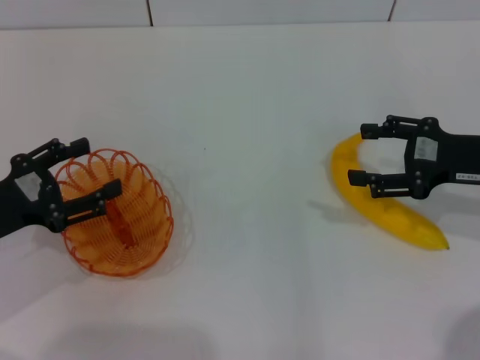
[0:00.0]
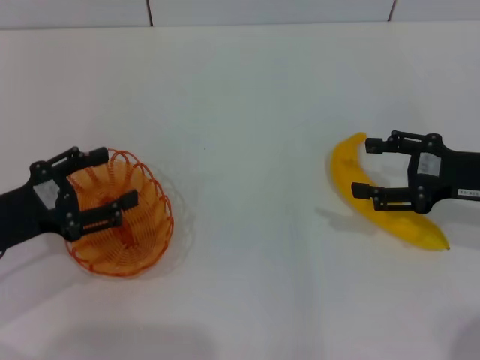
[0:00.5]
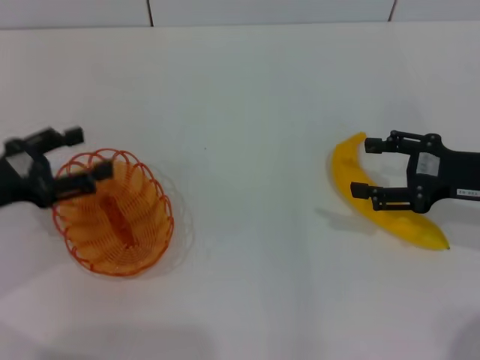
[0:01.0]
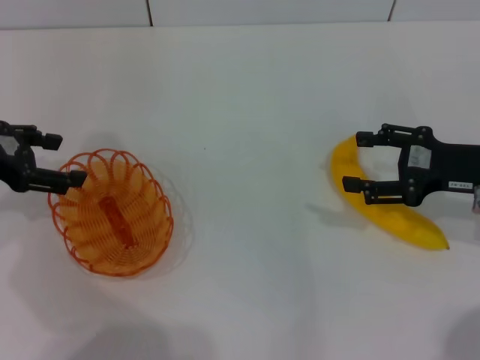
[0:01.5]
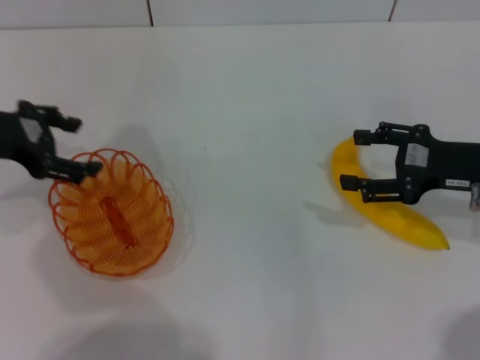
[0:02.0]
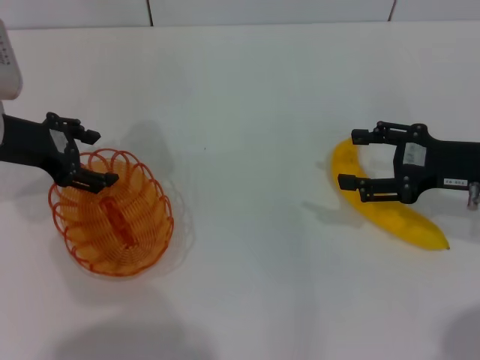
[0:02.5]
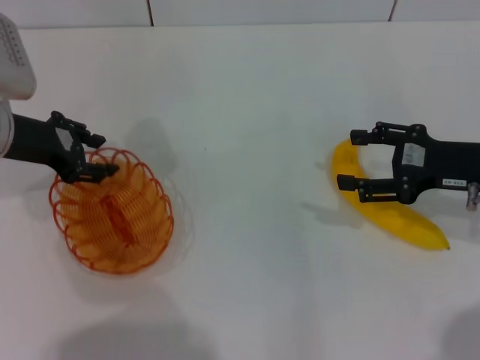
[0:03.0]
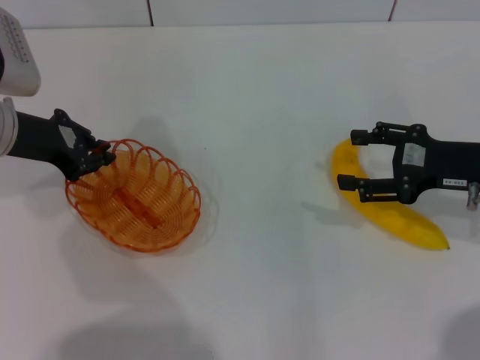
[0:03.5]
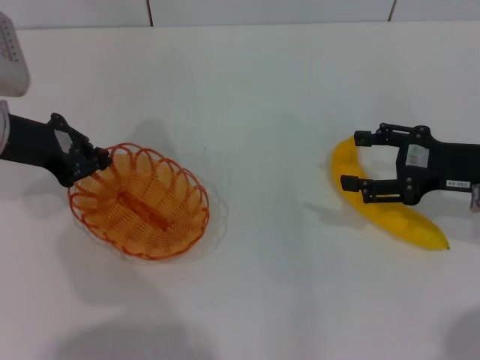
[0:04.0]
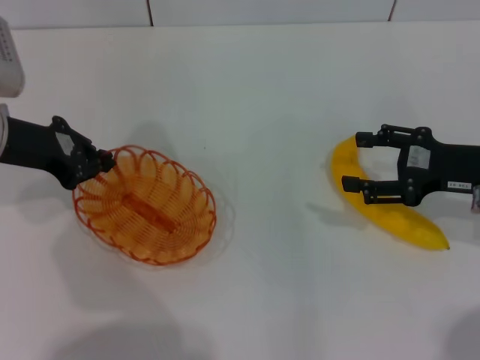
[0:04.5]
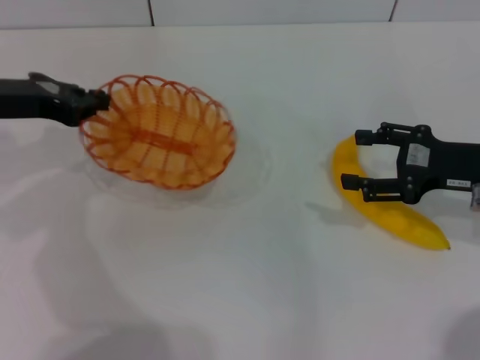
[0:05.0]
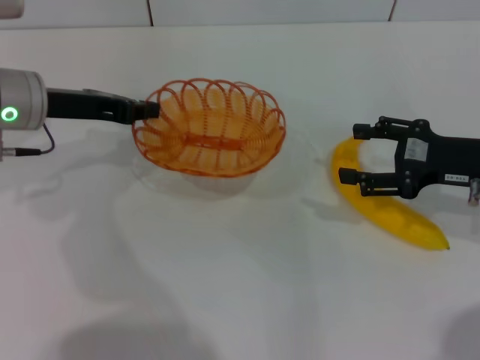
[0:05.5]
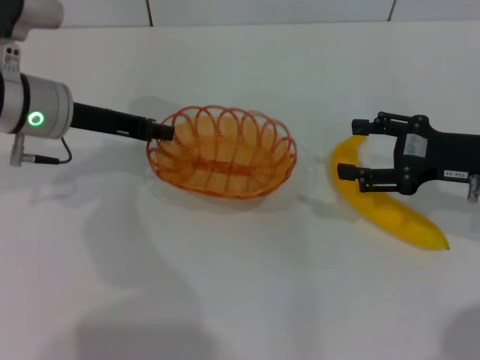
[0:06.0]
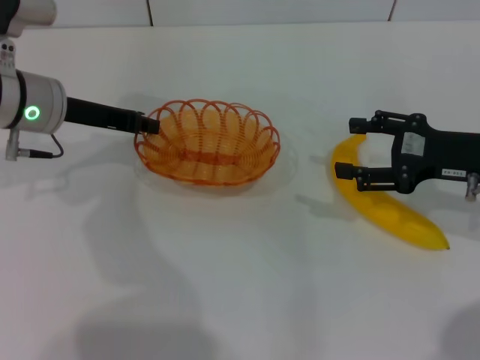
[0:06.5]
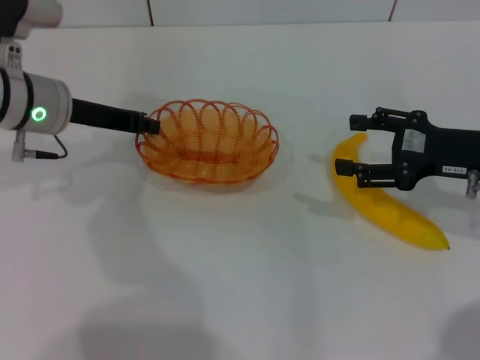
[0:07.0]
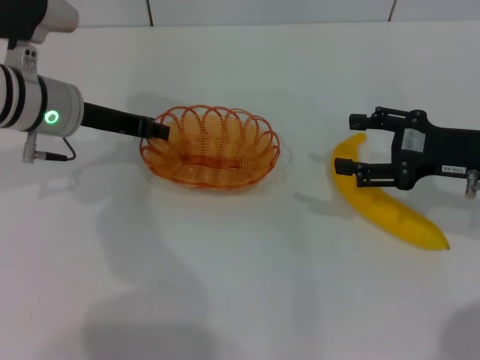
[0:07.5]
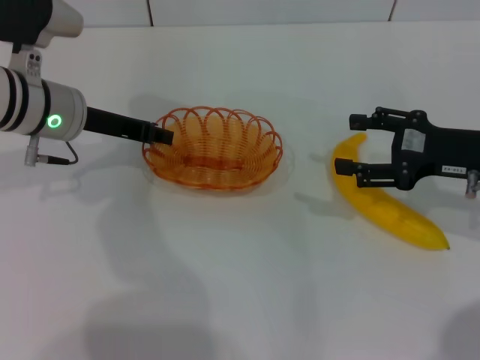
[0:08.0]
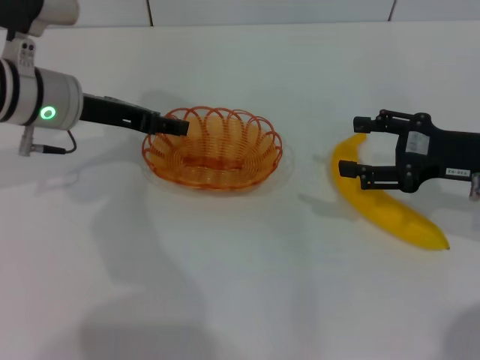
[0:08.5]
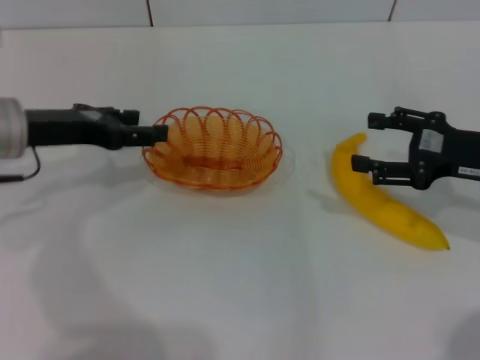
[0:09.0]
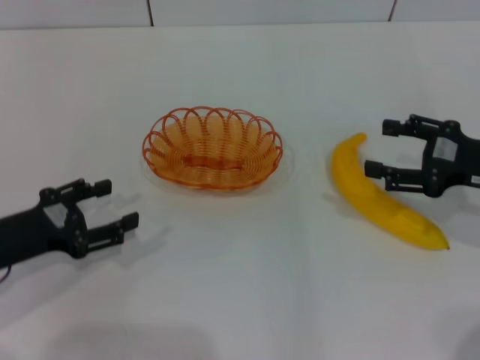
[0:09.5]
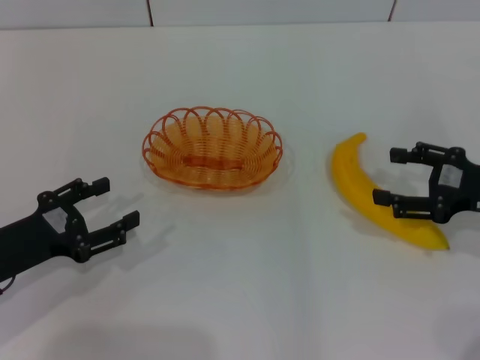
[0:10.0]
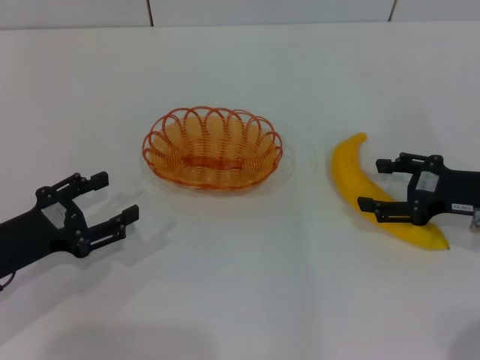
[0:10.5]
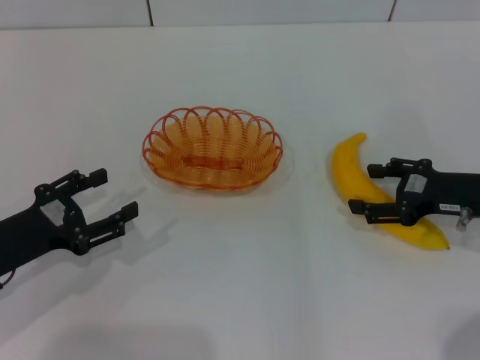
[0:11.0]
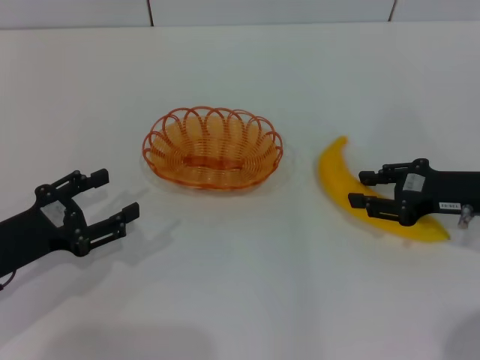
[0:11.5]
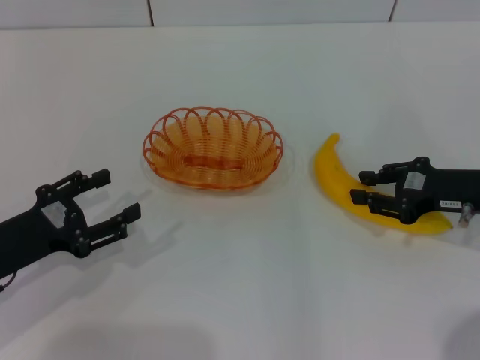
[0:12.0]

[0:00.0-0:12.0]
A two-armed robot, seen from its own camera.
Step, 0:00.0 to 0:04.5: Pick up the basket with the left gripper.
Step, 0:05.0 to 0:09.0: Place the basket in the center of view with the left gripper.
0:00.0 to 0:02.0: The left gripper shifts approximately 15 cm forward and upward.
0:02.0 to 0:04.0: The left gripper closes up.
0:04.0 to 0:06.0: The left gripper travels to the right by roughly 5 cm.
0:06.0 to 0:08.0: The grippers stay close to where they were, moving slightly.
0:08.0 to 0:10.0: The left gripper is displaced backward, to the left and downward by about 20 cm, and opens up. The right gripper changes place by roughly 5 cm.
0:10.0 to 0:12.0: The right gripper closes up.

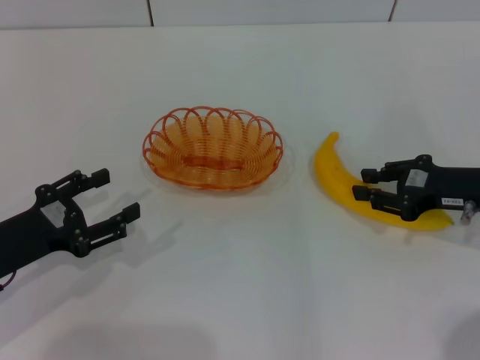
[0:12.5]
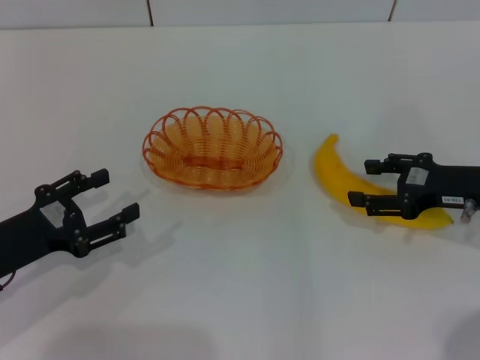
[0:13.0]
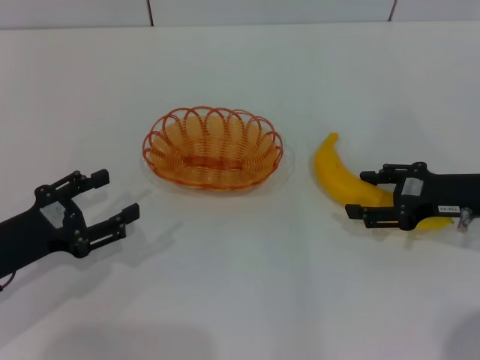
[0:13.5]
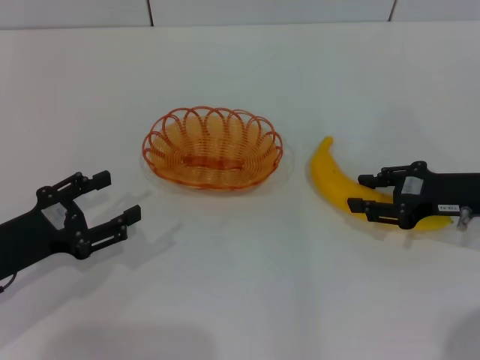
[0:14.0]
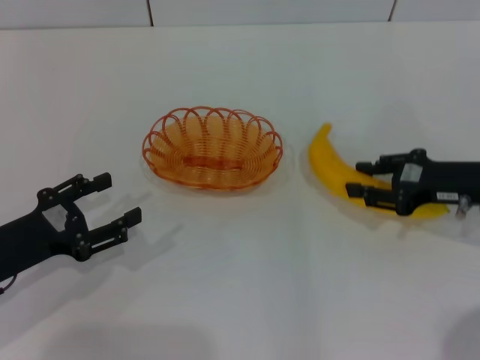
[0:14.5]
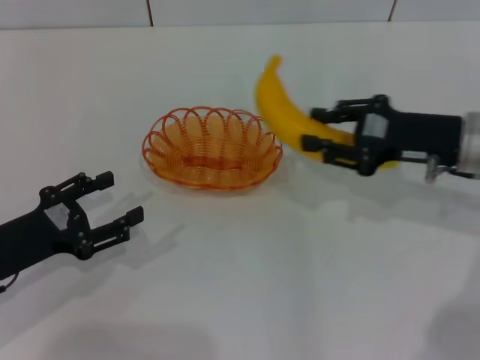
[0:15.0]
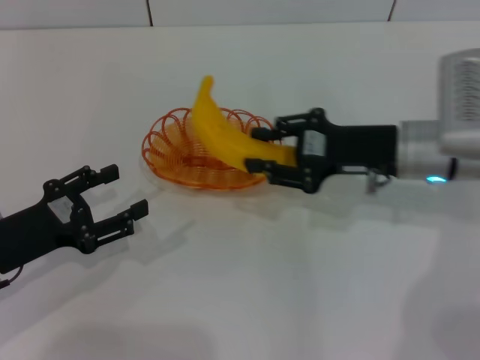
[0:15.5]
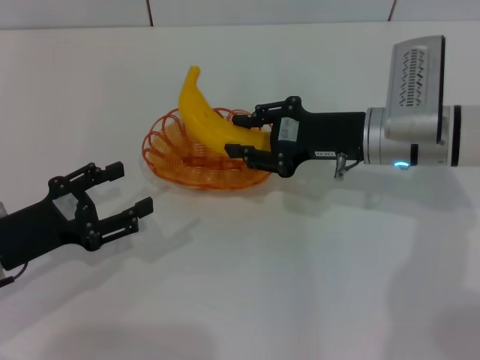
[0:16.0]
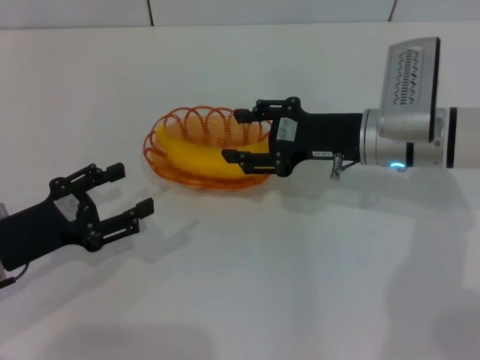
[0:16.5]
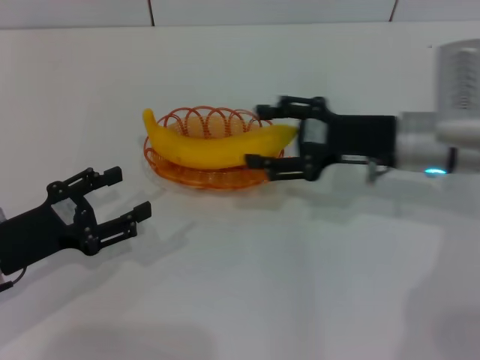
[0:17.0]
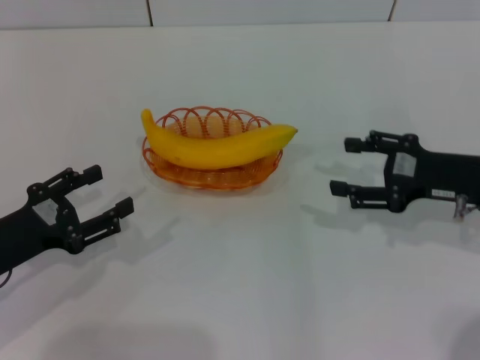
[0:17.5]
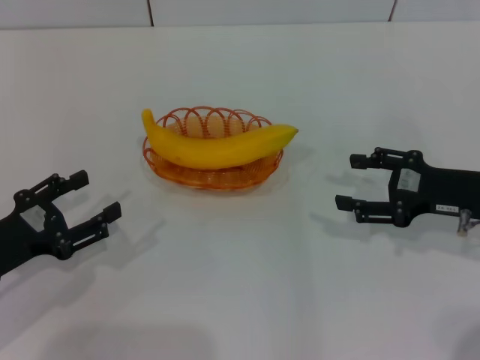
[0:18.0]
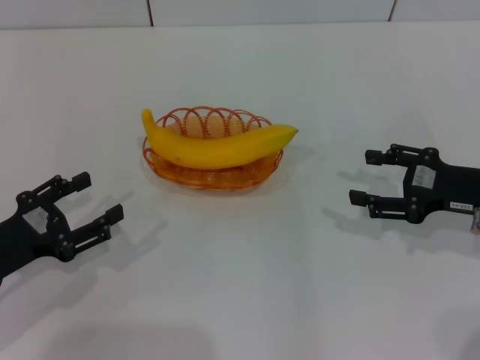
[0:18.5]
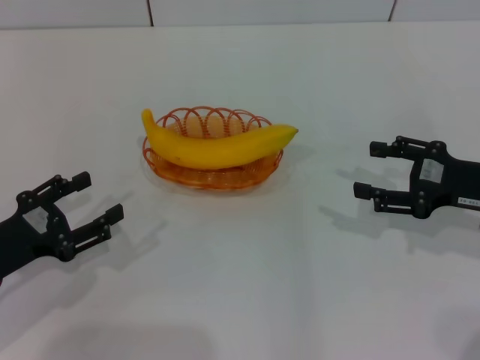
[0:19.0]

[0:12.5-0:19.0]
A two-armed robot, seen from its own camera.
Step, 0:12.5 to 0:14.5: Pick up the banana with the right gripper.
Step, 0:15.0 to 0:17.0: Place the banana into the basket with the right gripper.
0:12.5 to 0:14.5: The right gripper opens, then closes once more.
0:14.5 to 0:17.0: The right gripper is displaced to the left by about 10 cm, and opens up.
0:17.0 to 0:19.0: The right gripper heads to the right and backward, covering roughly 10 cm.

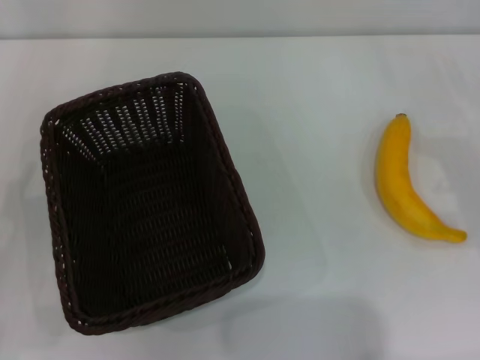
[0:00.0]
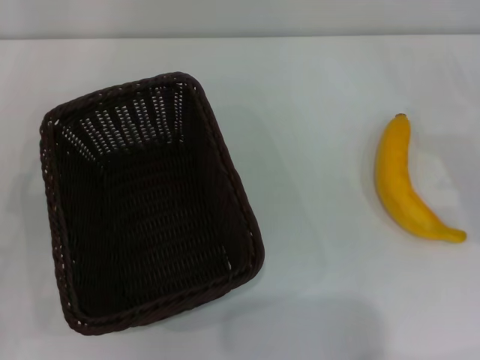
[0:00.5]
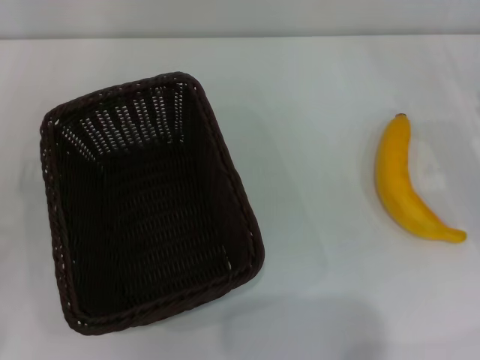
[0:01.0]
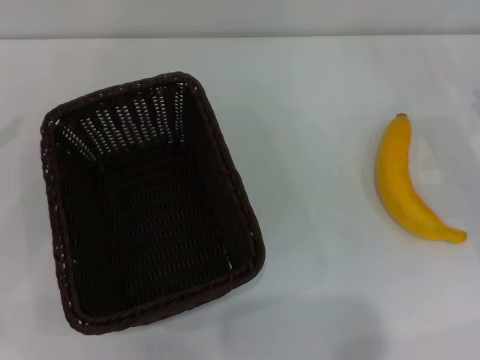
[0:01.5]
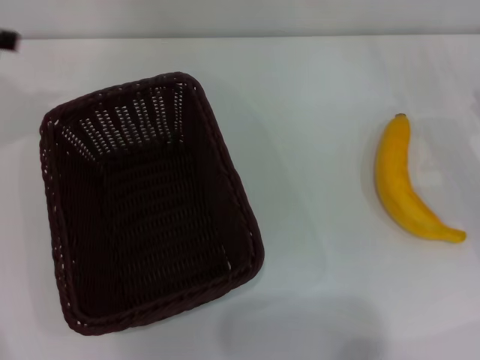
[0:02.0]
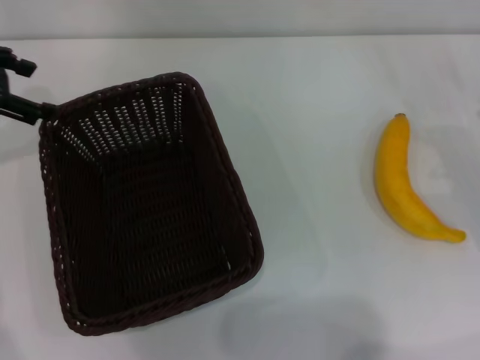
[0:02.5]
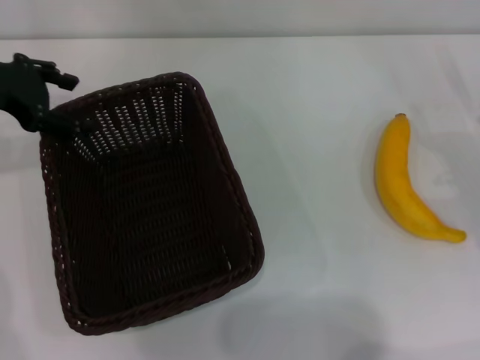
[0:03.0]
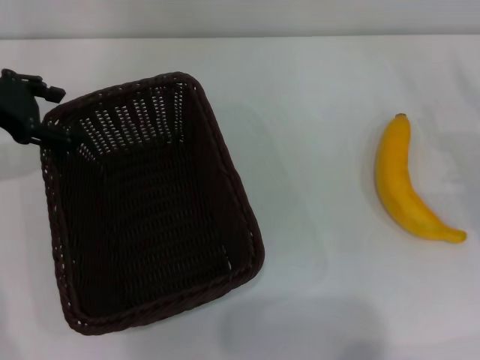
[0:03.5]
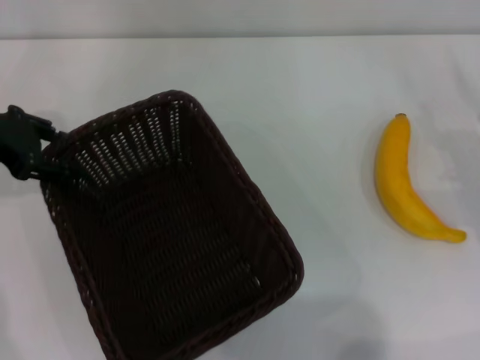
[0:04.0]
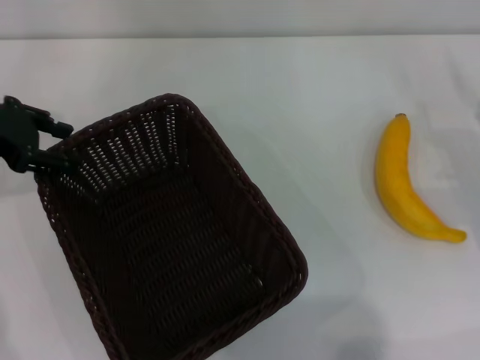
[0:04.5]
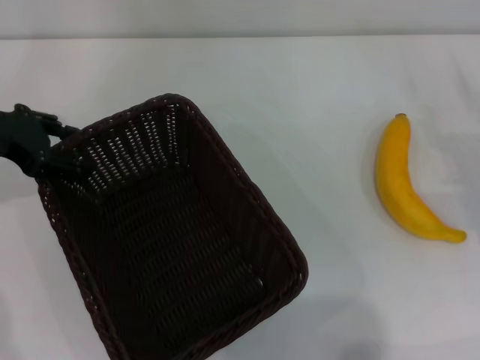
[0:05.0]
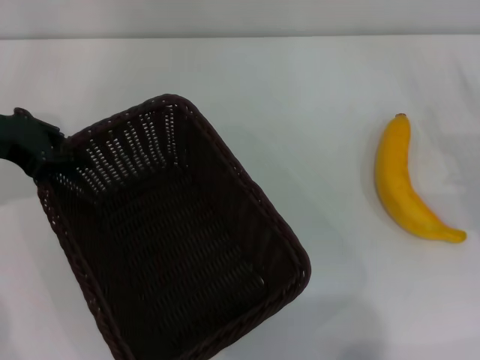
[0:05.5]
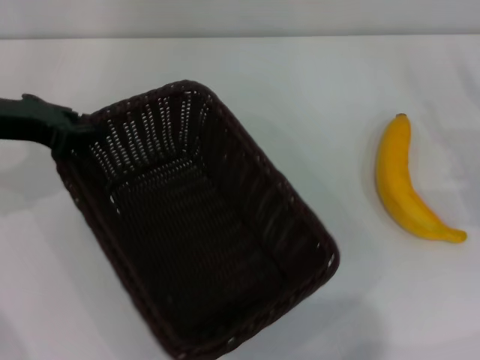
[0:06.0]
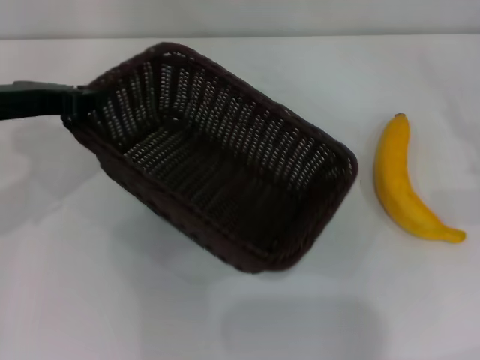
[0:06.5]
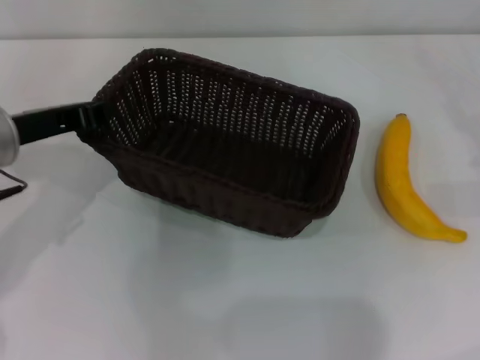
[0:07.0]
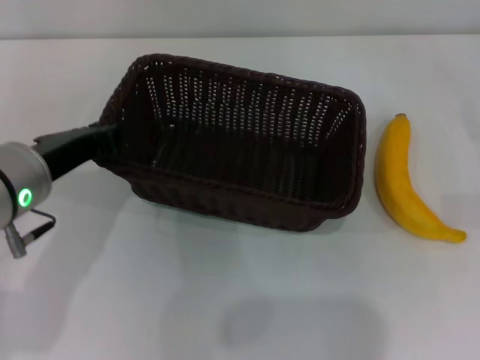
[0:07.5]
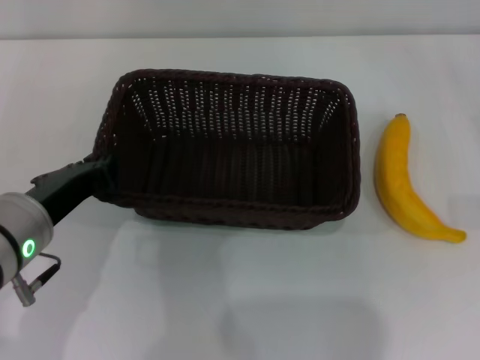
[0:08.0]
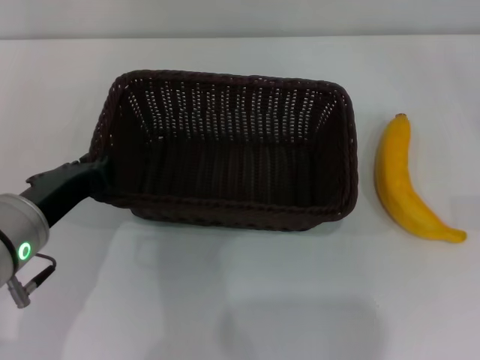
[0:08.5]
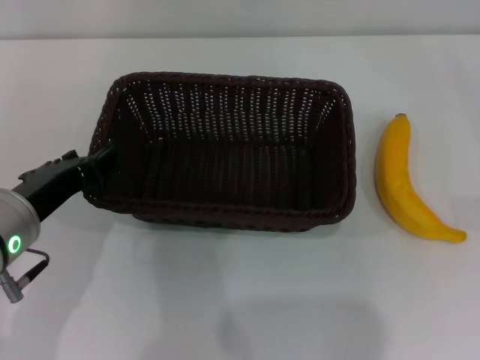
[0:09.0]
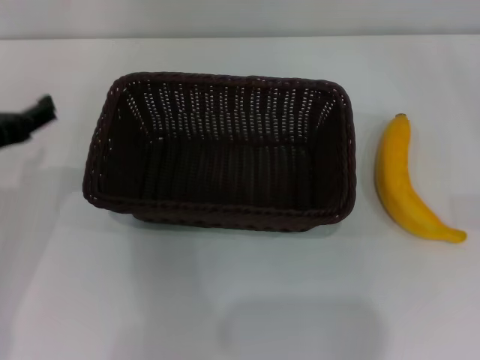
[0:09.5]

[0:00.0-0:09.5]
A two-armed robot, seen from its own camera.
Step, 0:00.0 to 0:06.0: Pick up the dark basket with the left gripper.
Step, 0:06.5 to 0:09.0: Place the dark basket in the center of view with the left gripper.
0:02.0 to 0:04.0: The left gripper is displaced downward and to the right by some 10 cm.
0:04.0 to 0:05.5: The left gripper closes up.
0:05.5 to 0:07.5: The right gripper heads to the right, covering approximately 5 cm. Meanwhile the left gripper shifts roughly 15 cm to the right and backward.
0:07.5 to 0:09.5: The left gripper travels to the left by roughly 5 cm, and opens up.
